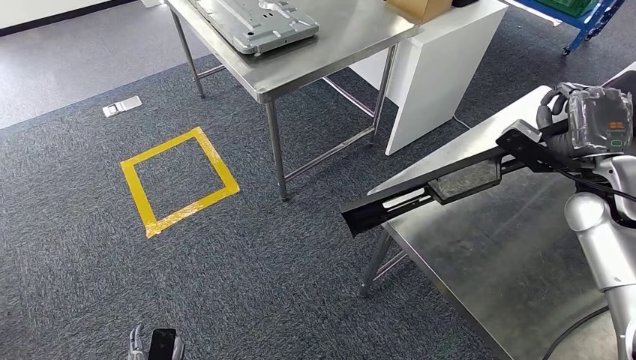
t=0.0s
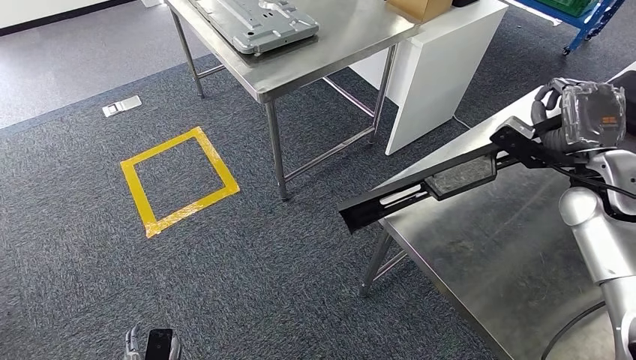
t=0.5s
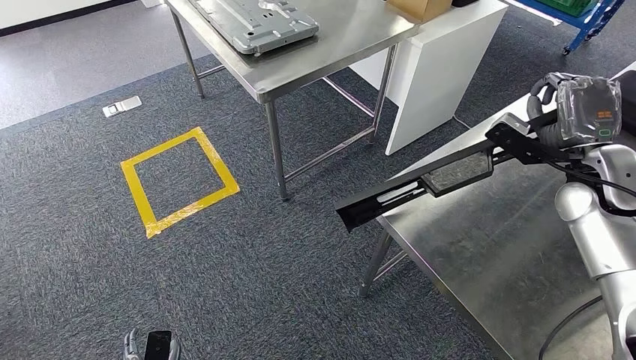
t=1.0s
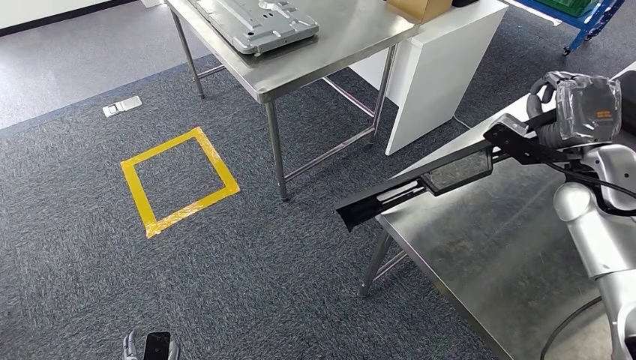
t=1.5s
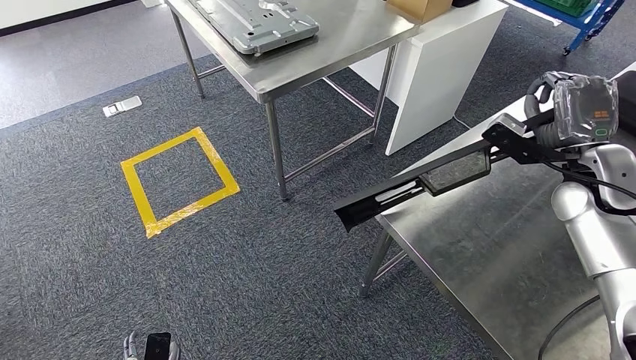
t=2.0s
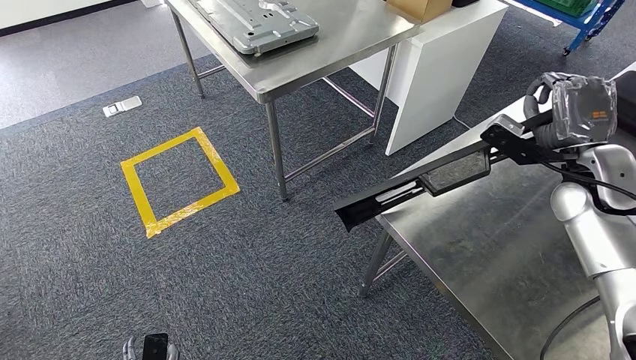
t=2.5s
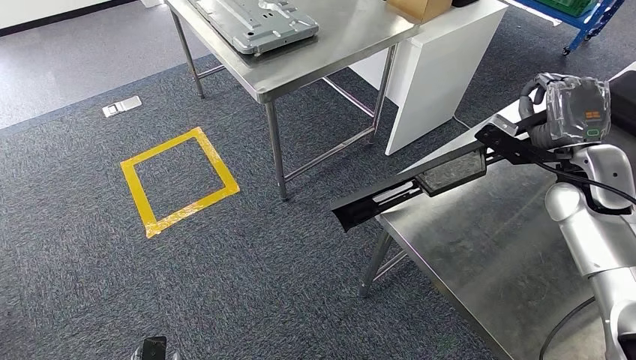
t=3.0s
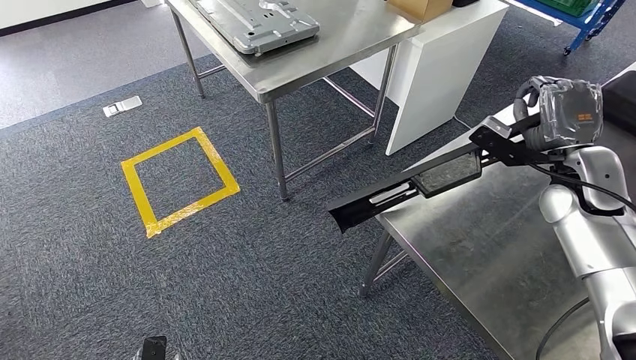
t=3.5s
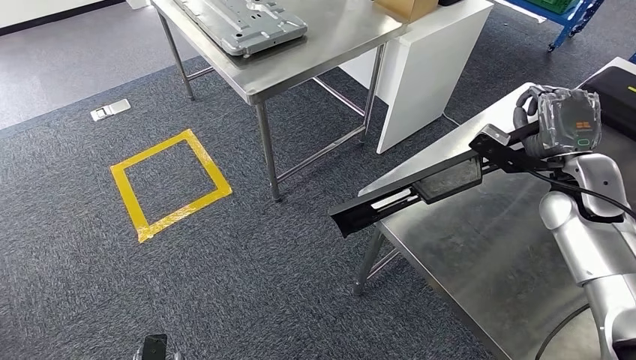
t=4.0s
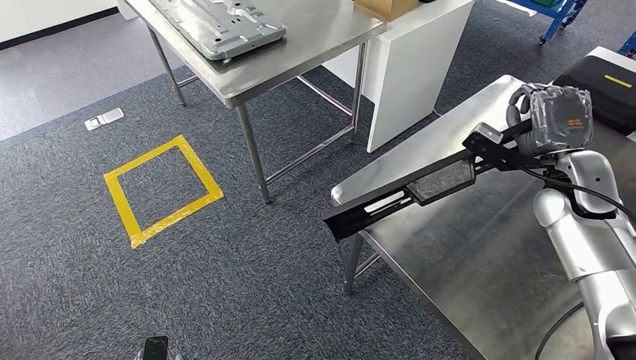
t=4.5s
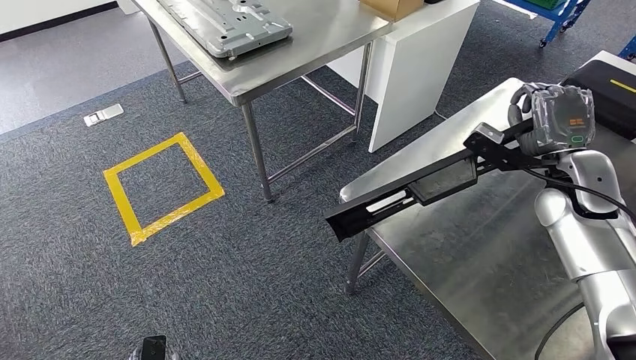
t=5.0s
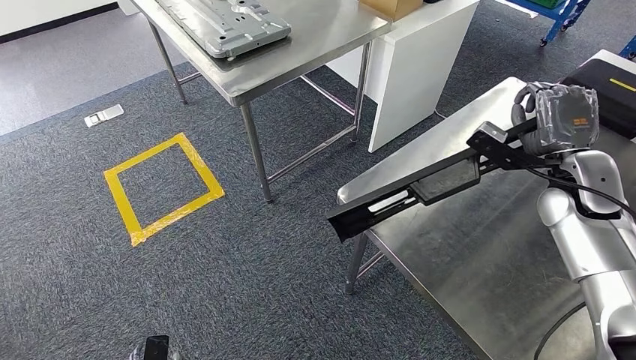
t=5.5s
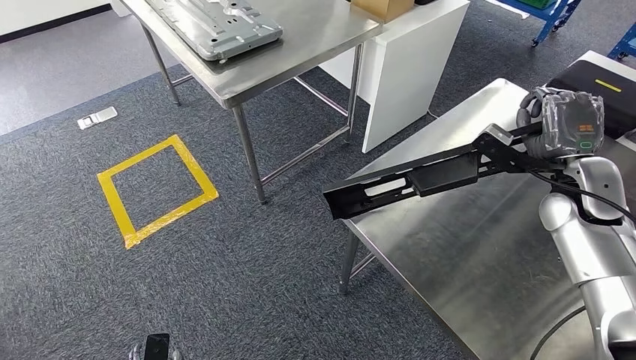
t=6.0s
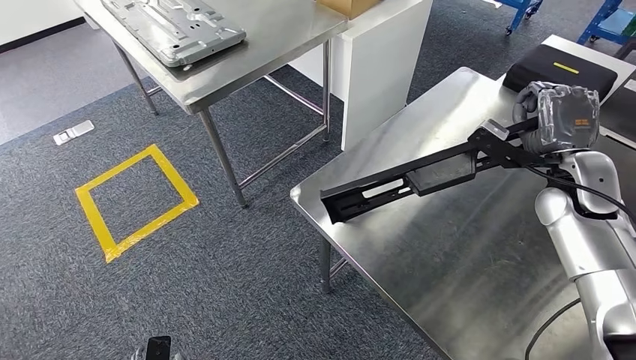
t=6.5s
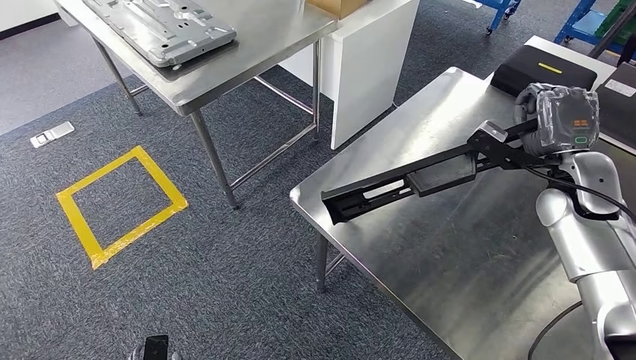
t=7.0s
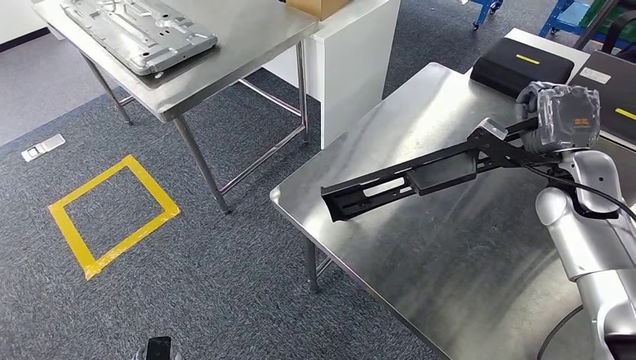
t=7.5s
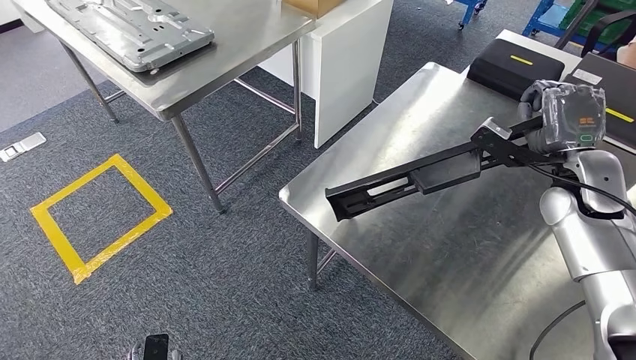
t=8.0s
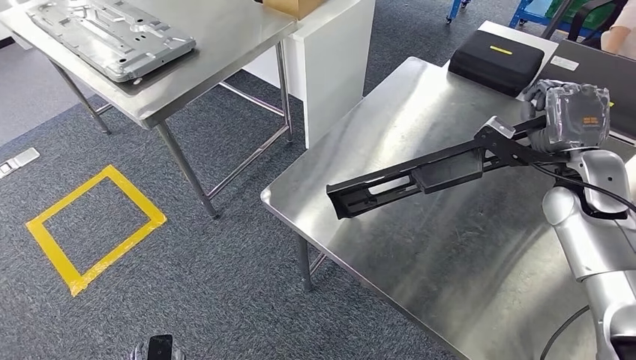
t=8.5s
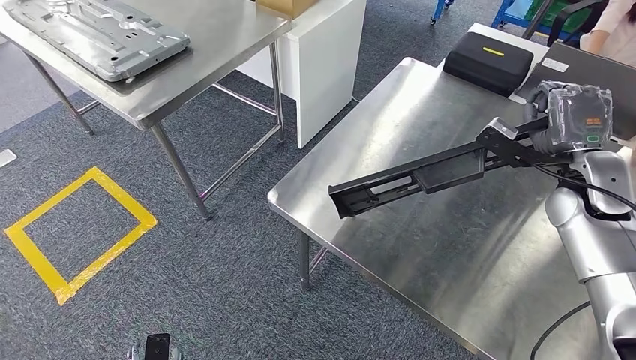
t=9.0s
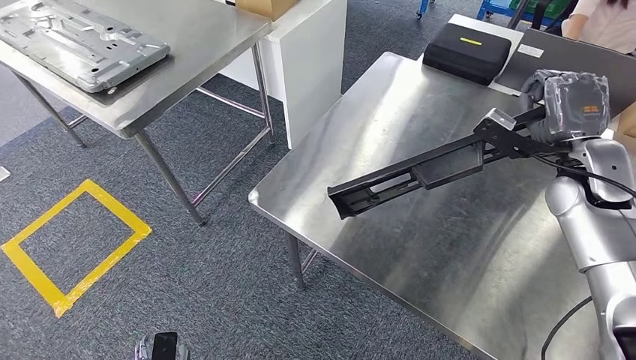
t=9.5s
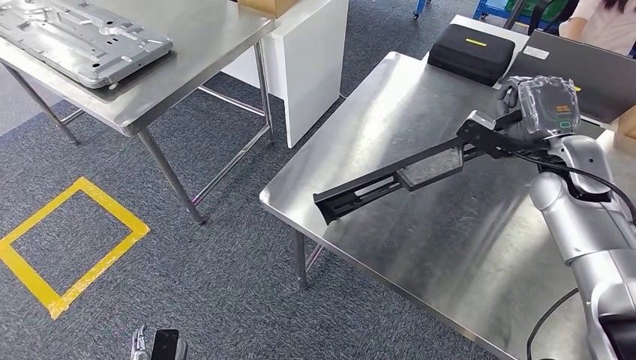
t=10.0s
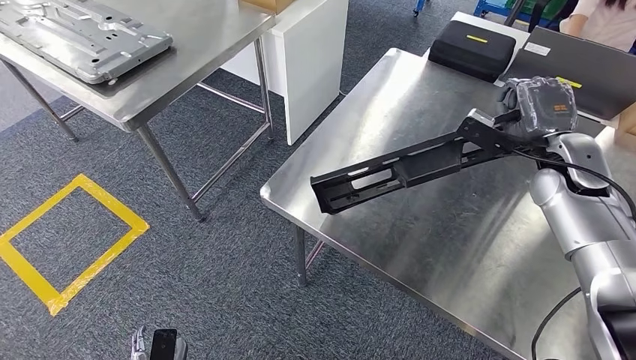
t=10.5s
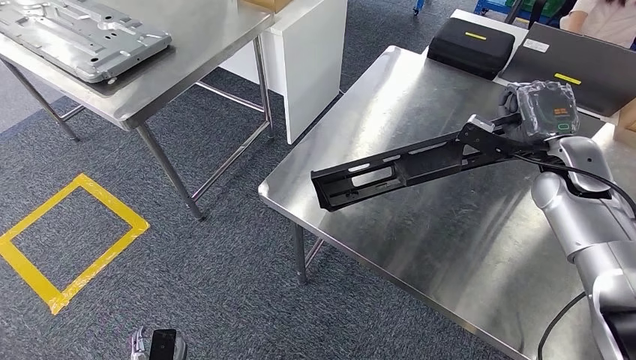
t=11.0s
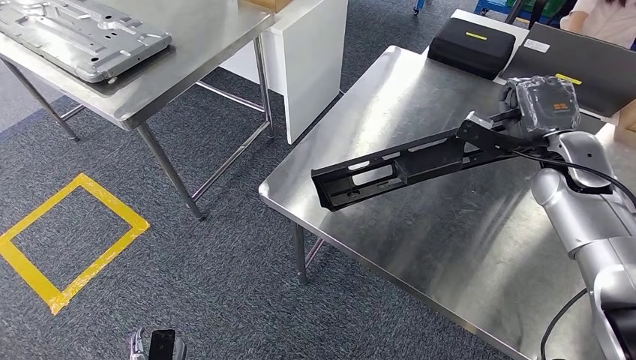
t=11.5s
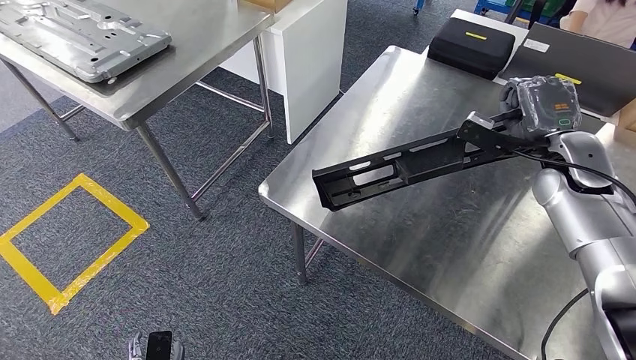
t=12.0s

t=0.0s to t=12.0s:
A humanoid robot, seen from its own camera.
t=0.0s to t=2.0s: There are only small adjustments of the hands.

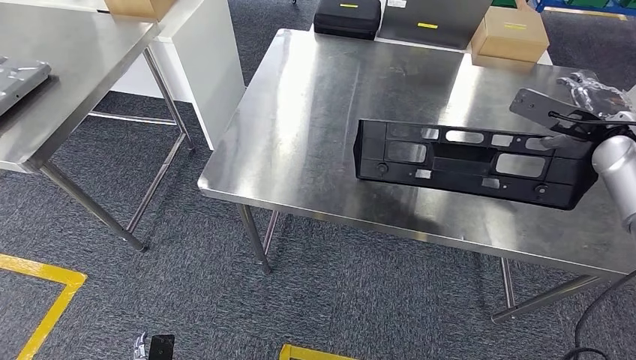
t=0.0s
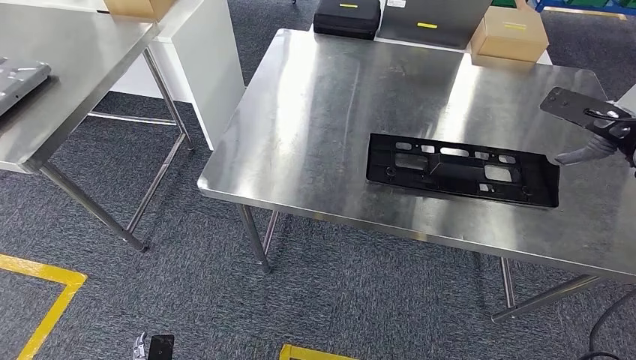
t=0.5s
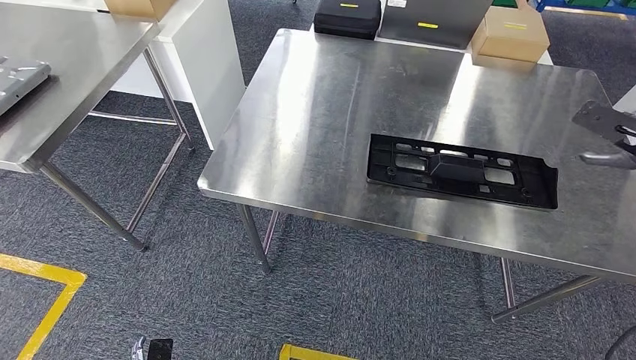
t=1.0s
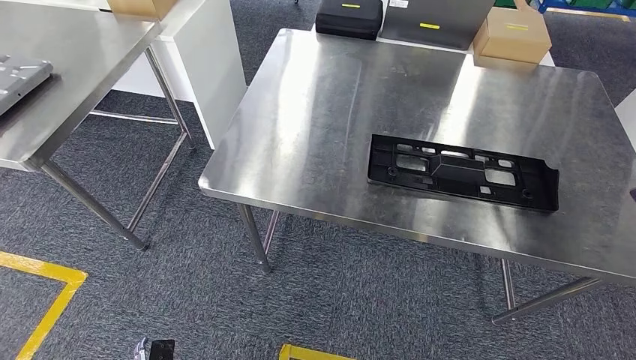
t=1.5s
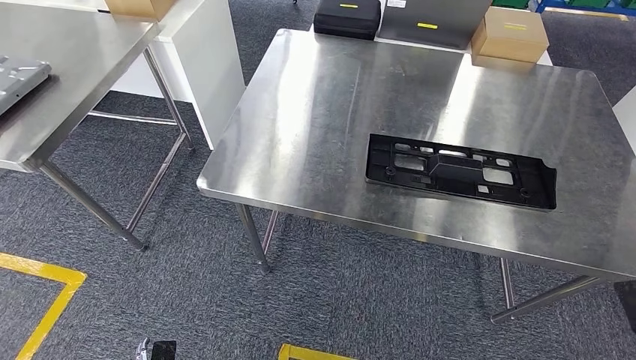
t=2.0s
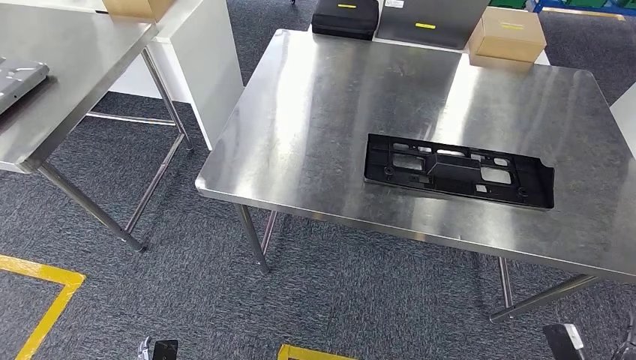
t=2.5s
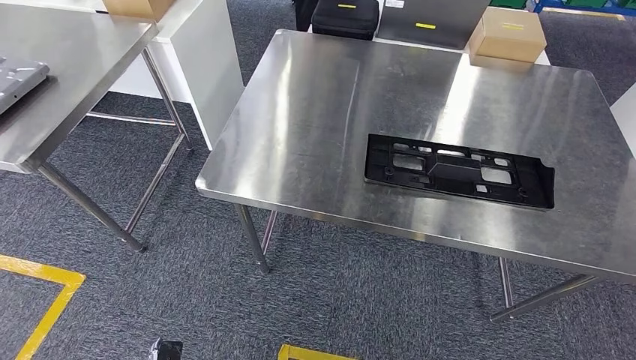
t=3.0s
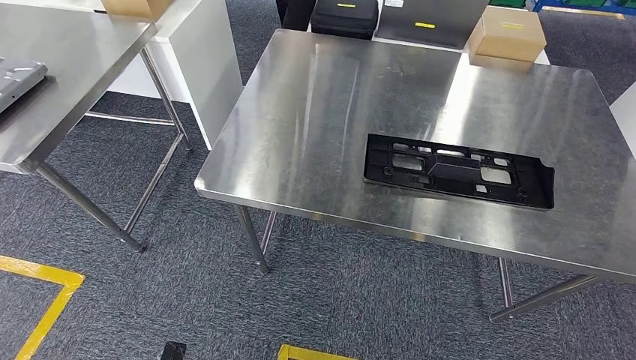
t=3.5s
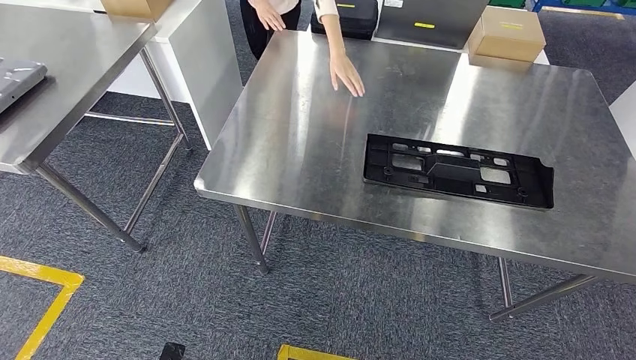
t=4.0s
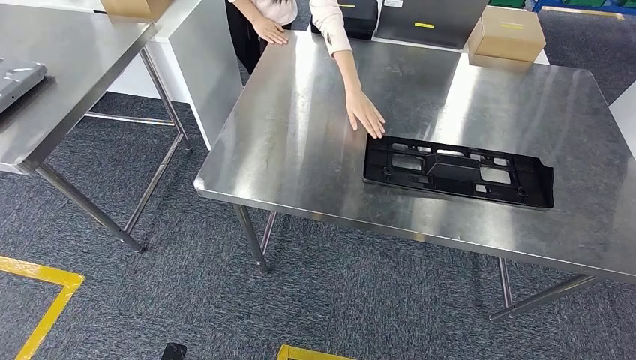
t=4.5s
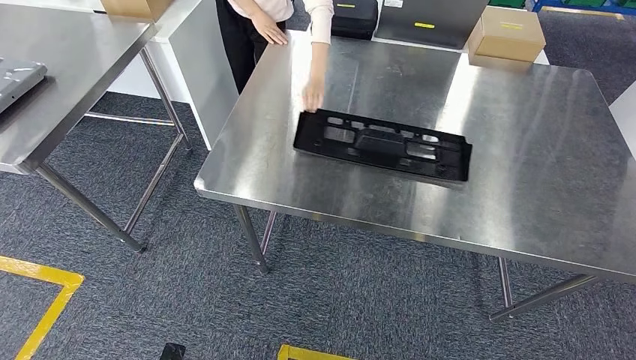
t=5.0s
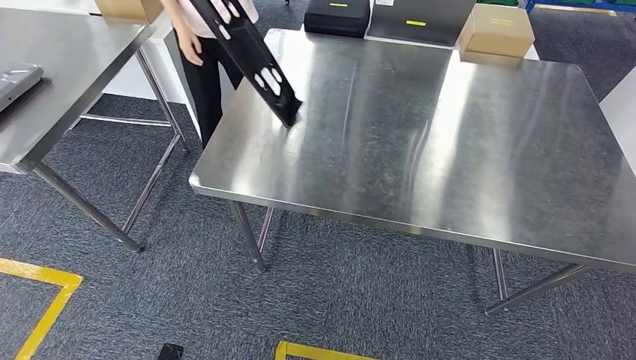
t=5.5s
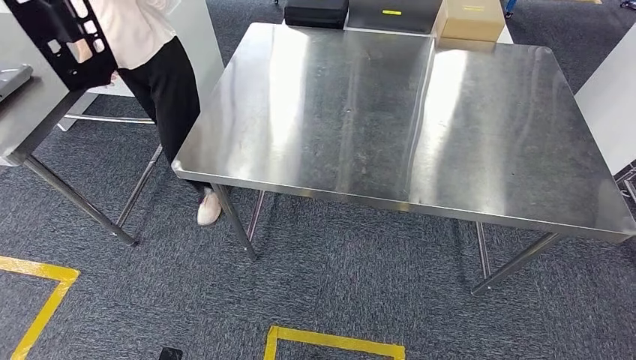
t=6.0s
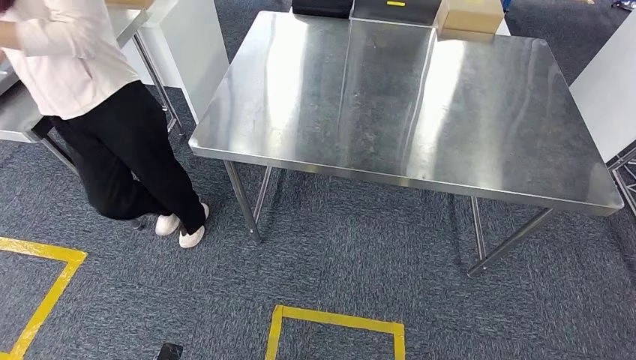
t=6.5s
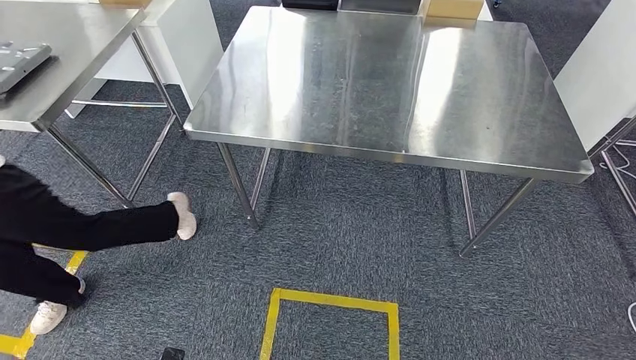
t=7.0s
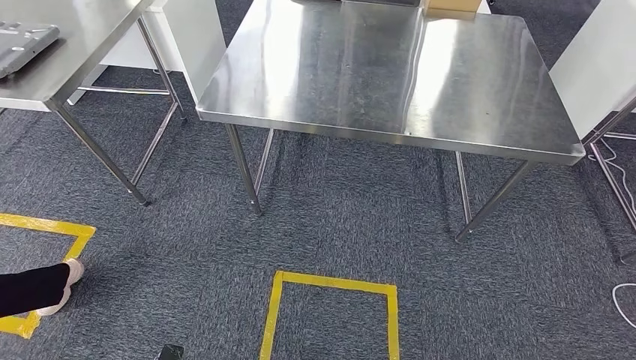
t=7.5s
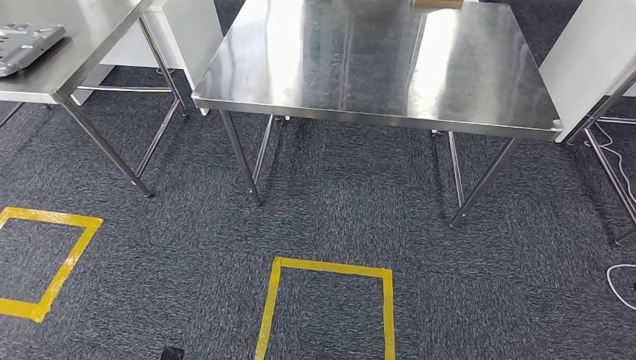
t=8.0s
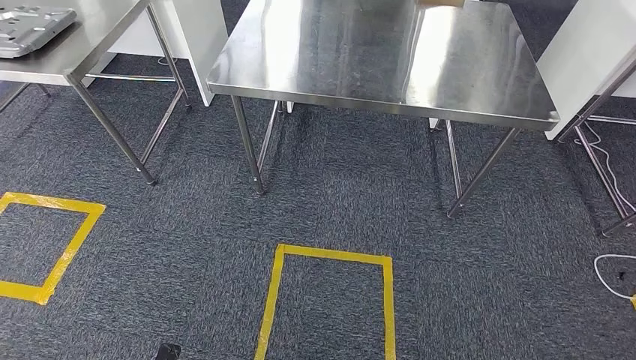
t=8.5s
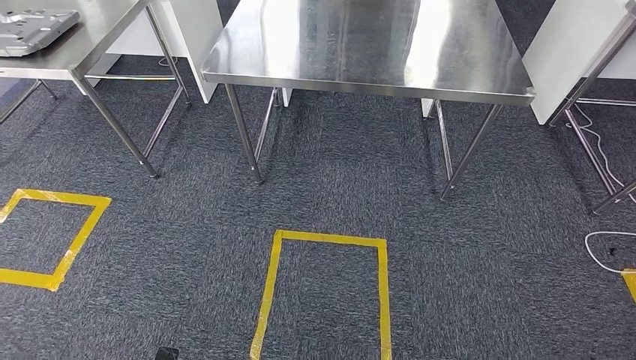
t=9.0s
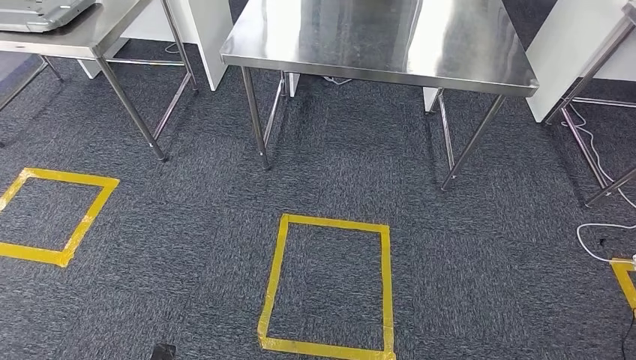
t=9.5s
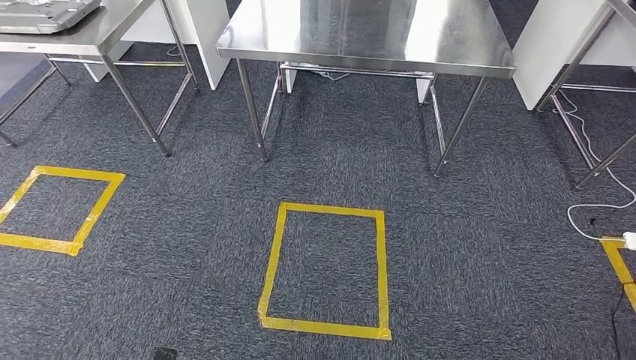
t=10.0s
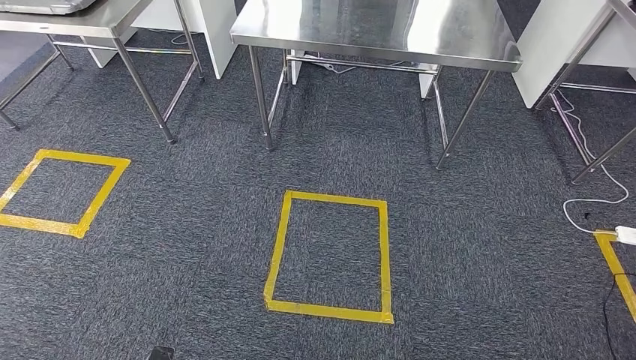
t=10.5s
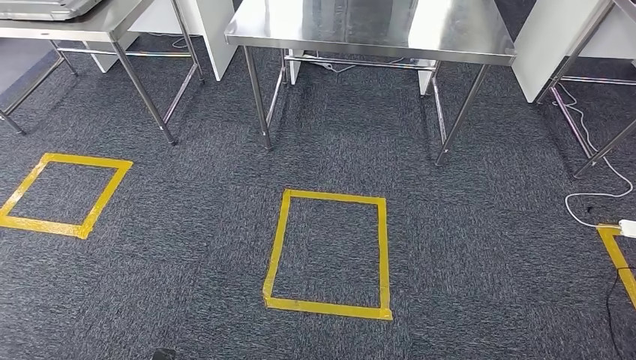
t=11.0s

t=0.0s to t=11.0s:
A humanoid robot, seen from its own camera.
Step, t=0.0s to t=2.0s: Insert the large material into the corresponding hole on the workbench.
t=0.0s to t=2.0s: The right hand travels backward and downward by roughly 35 cm.
t=2.0s to t=3.5s: The right hand heads downward, to the left and backward, covering about 35 cm.
